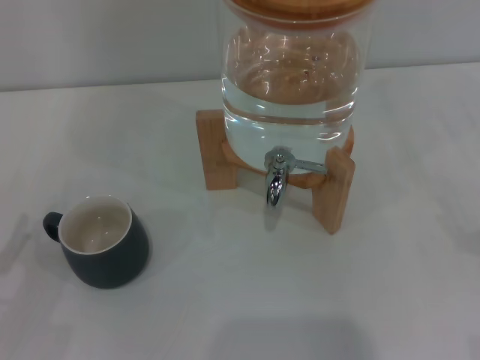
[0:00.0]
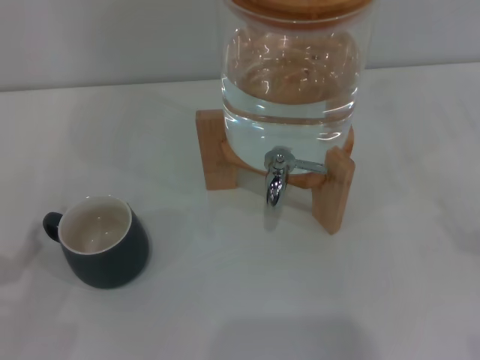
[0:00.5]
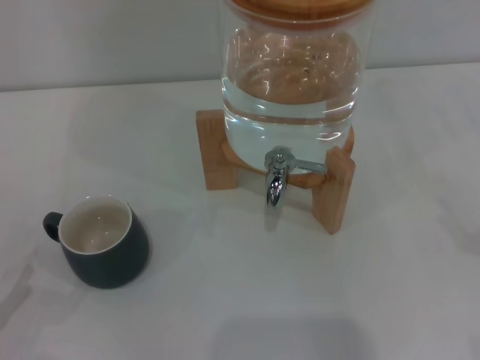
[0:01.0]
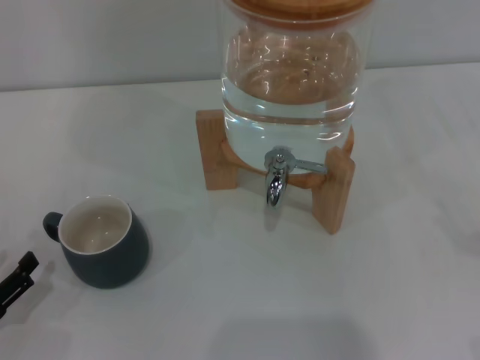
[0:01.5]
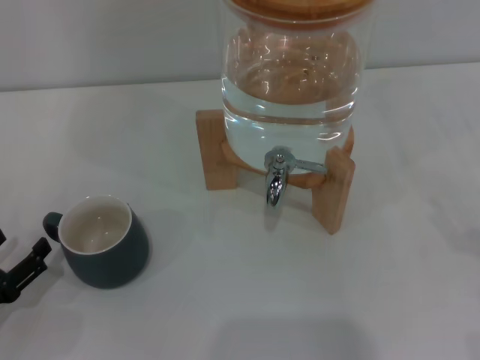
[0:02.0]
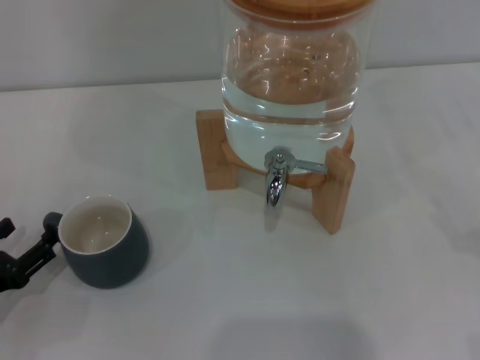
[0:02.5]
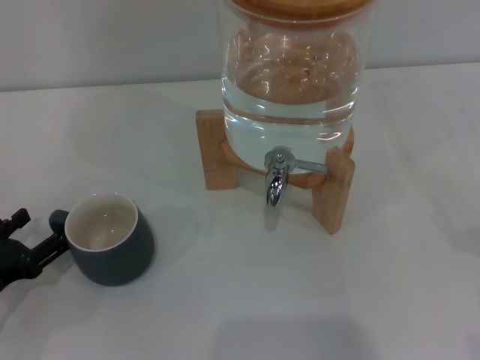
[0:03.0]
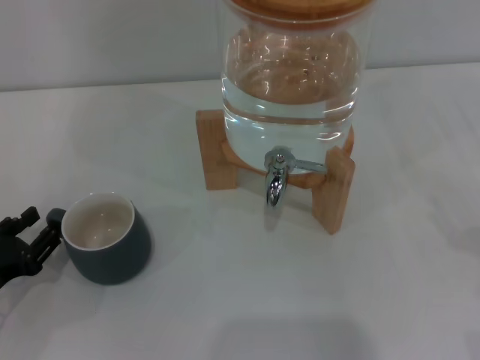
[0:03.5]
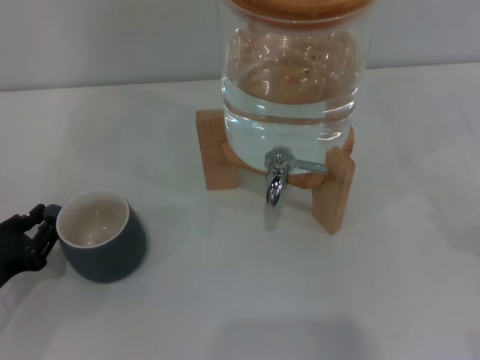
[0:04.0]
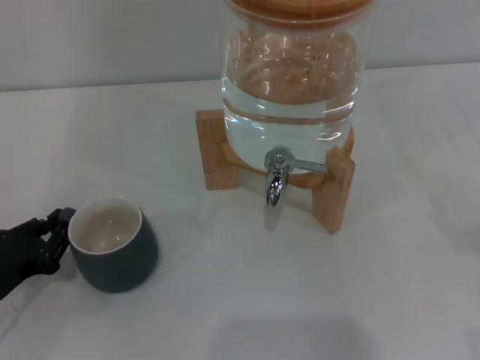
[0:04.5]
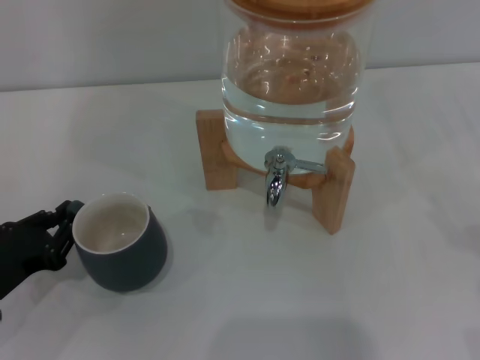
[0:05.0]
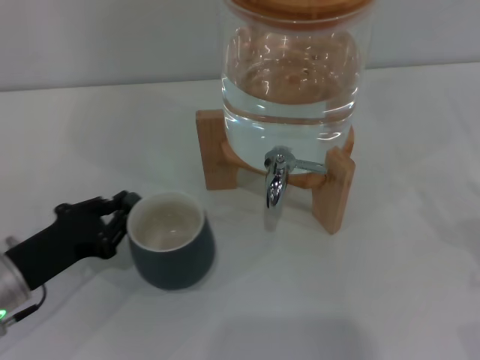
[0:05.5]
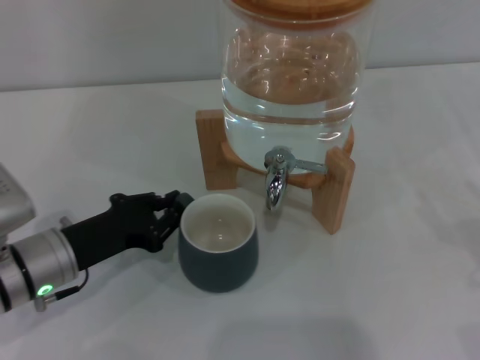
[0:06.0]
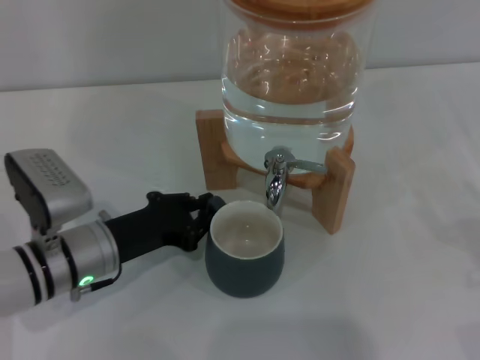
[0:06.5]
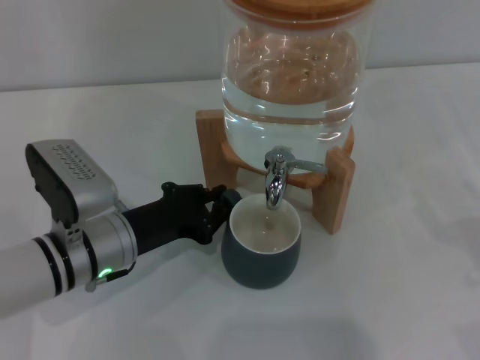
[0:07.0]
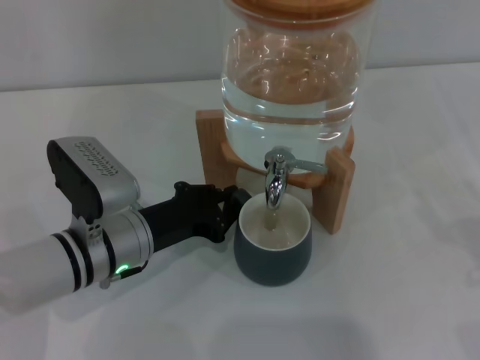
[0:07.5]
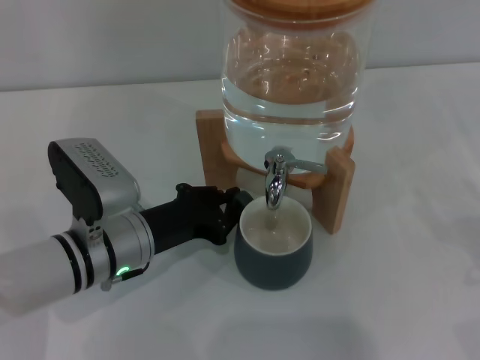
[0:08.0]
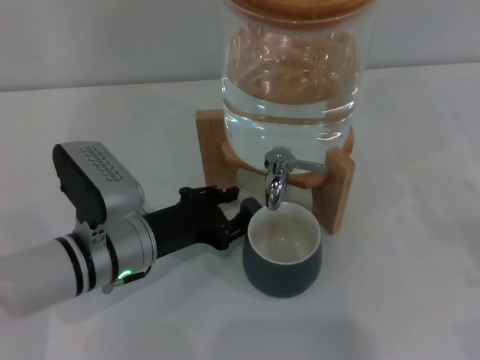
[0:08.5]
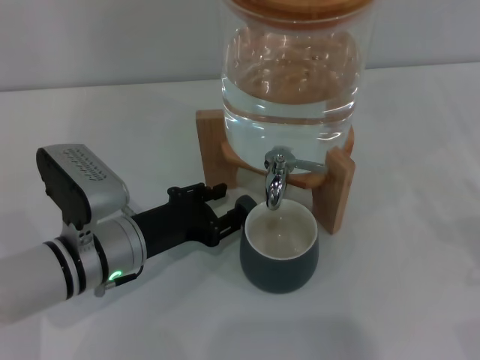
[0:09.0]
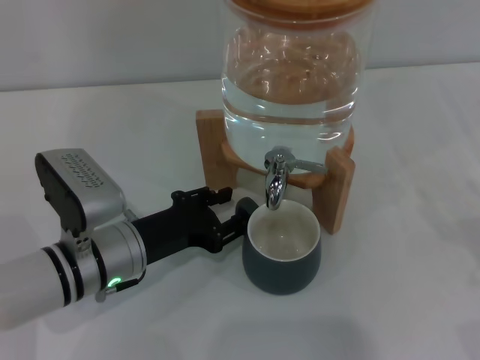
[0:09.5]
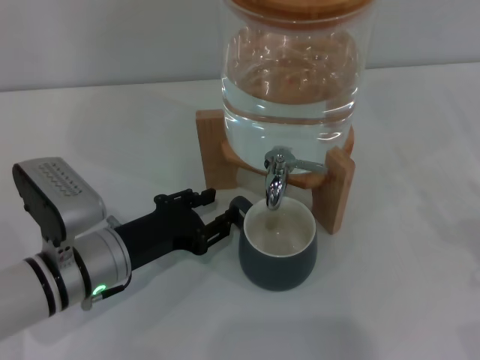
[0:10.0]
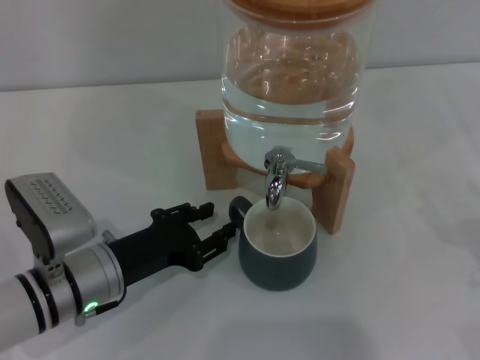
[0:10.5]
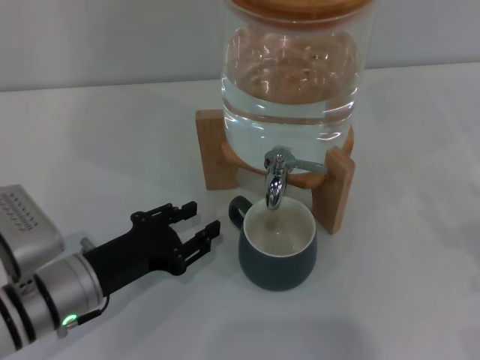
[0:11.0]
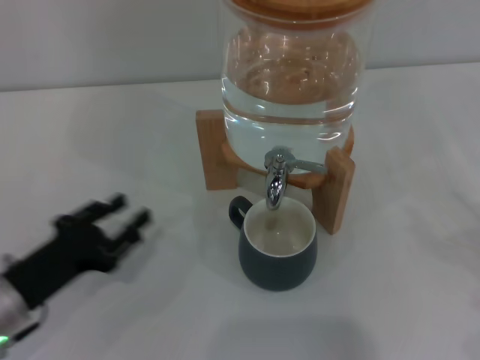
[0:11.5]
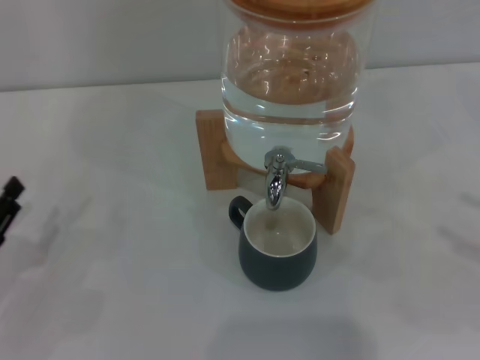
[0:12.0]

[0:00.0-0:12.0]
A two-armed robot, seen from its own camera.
Task of the whole recording: the left gripper pick up the black cup and place it horizontally under the faucet, the right gripper turn on the faucet to fill the cup, and then turn off the faucet.
Step, 0:00.0 to 0:10.0: Move the cup beneath the water dispenser nozzle with the left gripper.
0:02.0 to 0:04.0: The left gripper closes.
0:04.0 to 0:06.0: The left gripper shifts approximately 10 cm to the right and forward.
0:06.0 to 0:08.0: The left gripper moves to the right, some 5 cm.
0:08.0 to 0:10.0: The left gripper opens its fingers.
0:10.0 to 0:12.0: The right gripper goes roughly 10 cm upward, while the left gripper is displaced to the left and backward by approximately 15 cm.

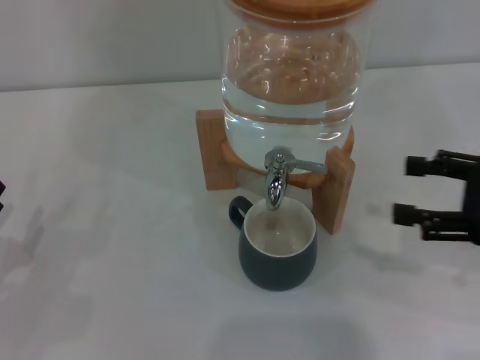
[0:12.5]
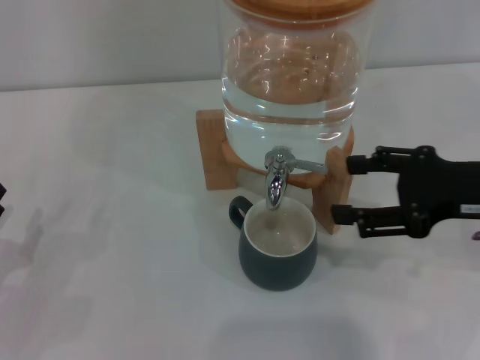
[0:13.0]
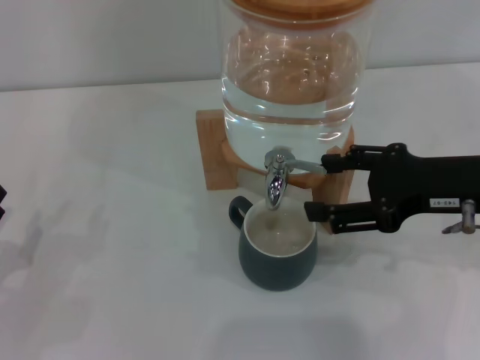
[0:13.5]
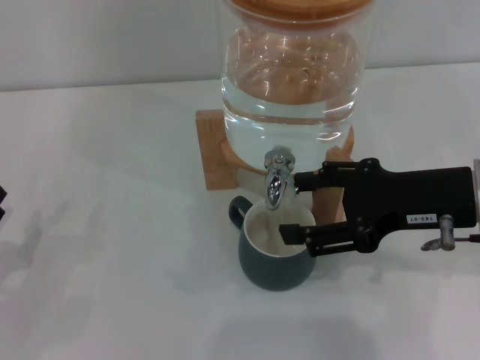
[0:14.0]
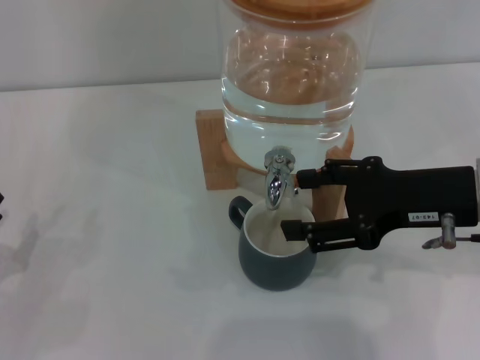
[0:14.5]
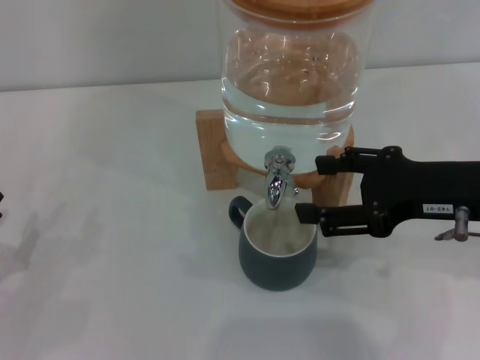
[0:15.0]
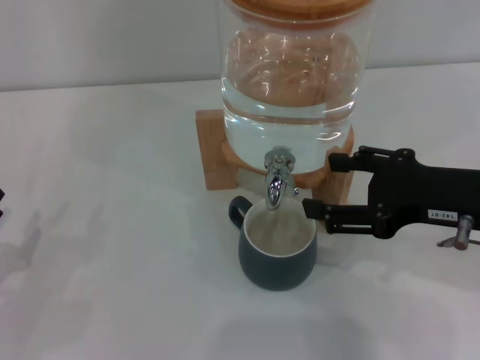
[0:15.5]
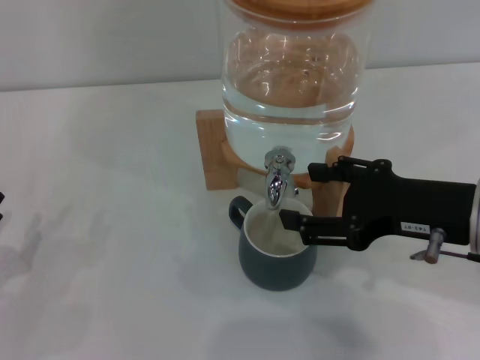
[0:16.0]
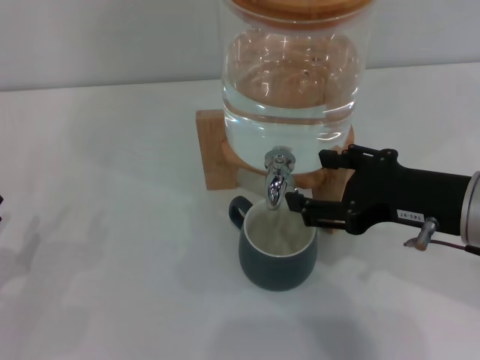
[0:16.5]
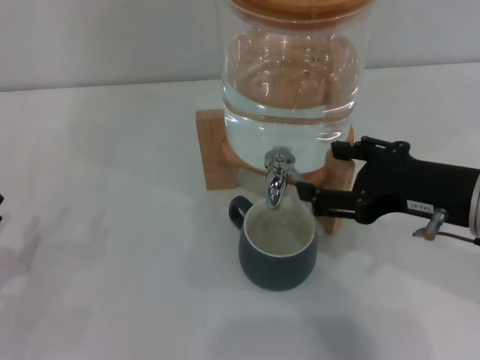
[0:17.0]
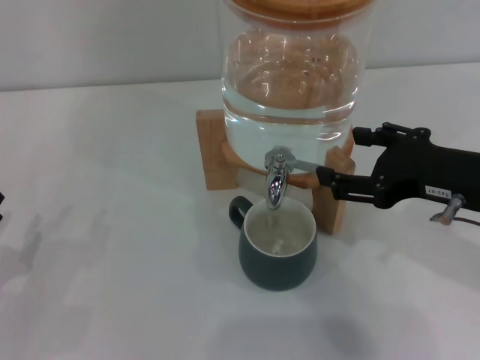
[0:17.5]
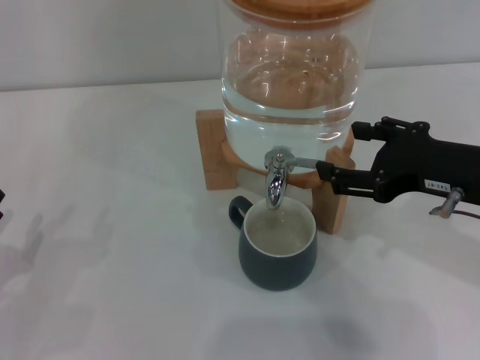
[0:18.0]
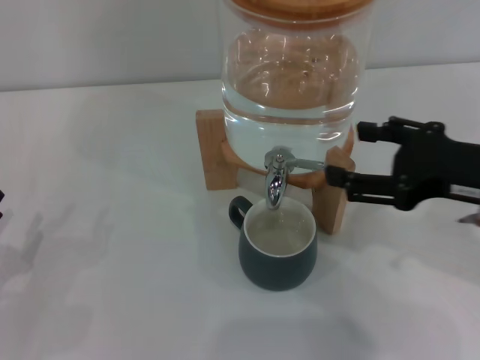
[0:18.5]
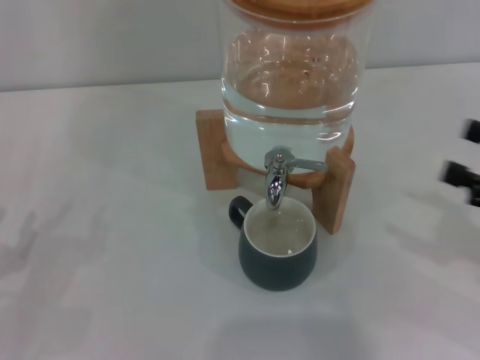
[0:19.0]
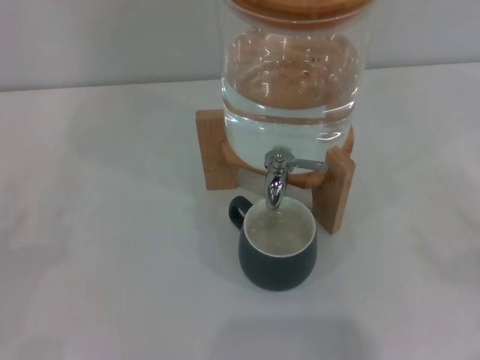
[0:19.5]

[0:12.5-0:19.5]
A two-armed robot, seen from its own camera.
Task of the whole recording: the left gripper pick up the black cup and place it horizontally under the faucet, the right gripper turn on the faucet to fill the cup, and then turn off the faucet.
Step, 0:15.0 to 0:18.0: Close the dispenser valve with the right gripper.
0:12.5 to 0:14.5: The right gripper shifts some 10 cm to the left.
0:14.5 to 0:16.0: The grippers move only a little.
0:16.0 to 0:17.5: The grippers stay close to where they were, moving slightly.
0:17.5 to 0:19.5: The right gripper moves to the right, downward and backward, some 25 cm.
